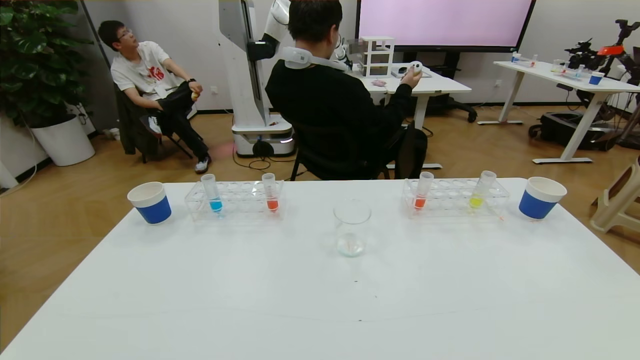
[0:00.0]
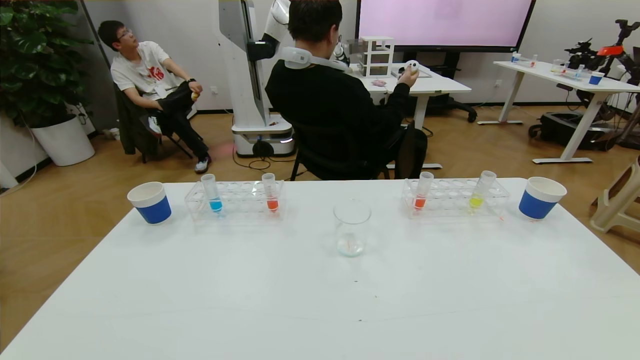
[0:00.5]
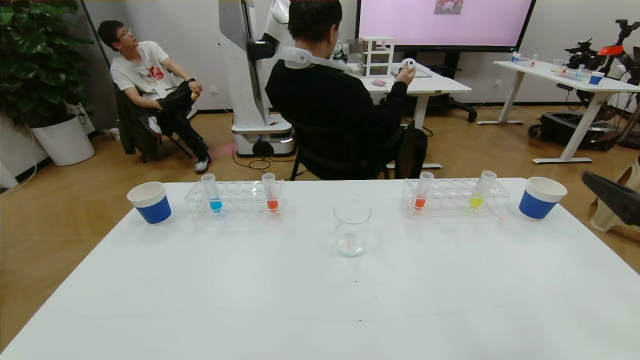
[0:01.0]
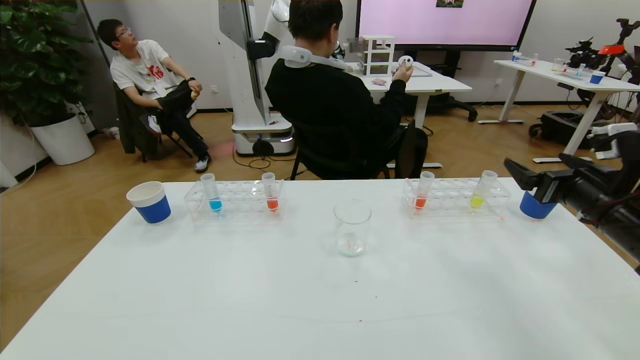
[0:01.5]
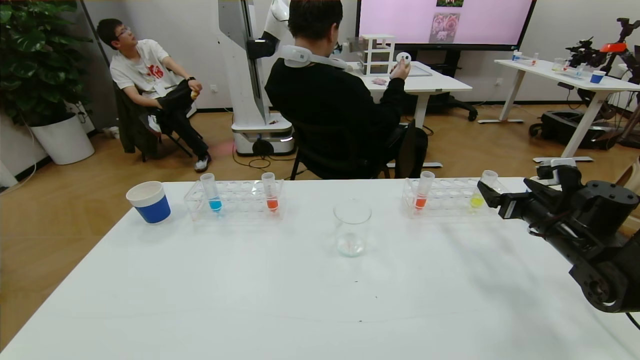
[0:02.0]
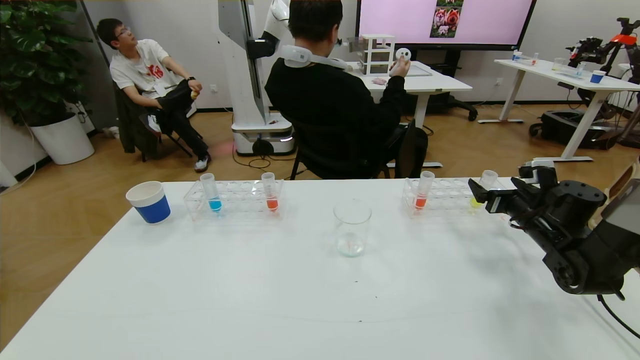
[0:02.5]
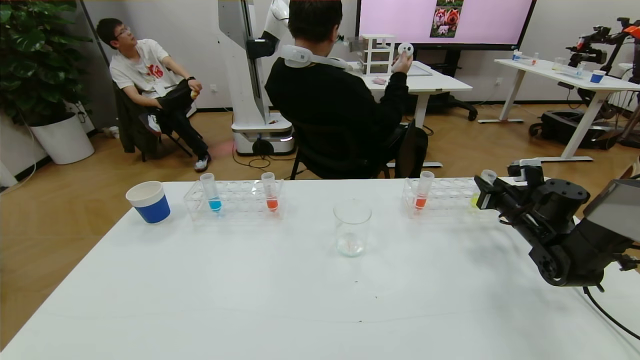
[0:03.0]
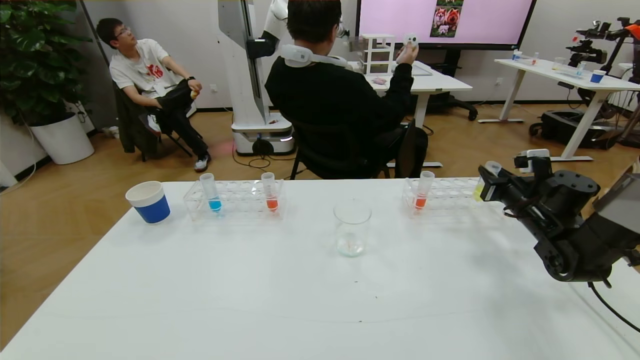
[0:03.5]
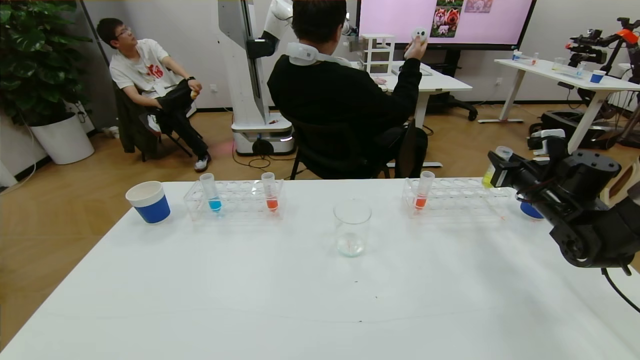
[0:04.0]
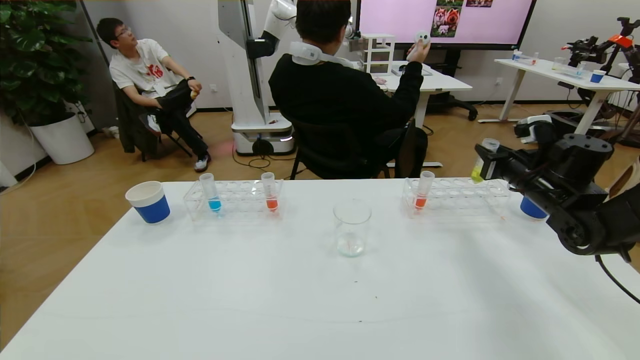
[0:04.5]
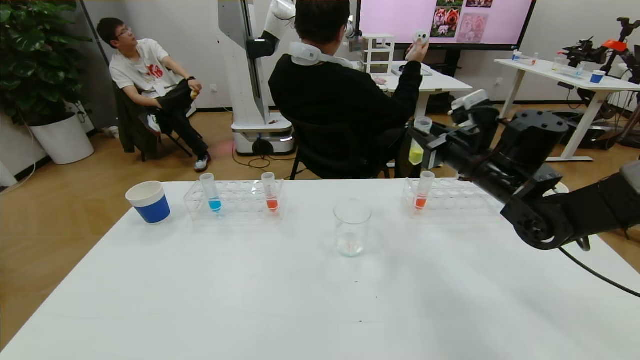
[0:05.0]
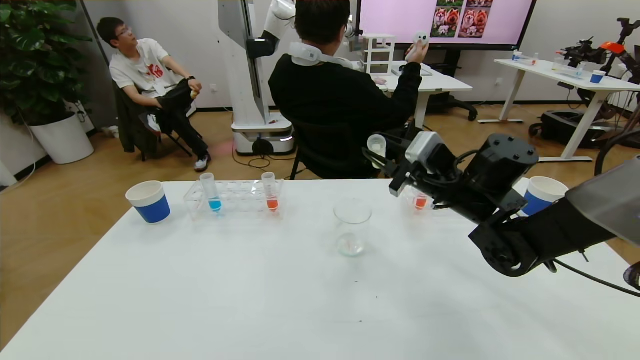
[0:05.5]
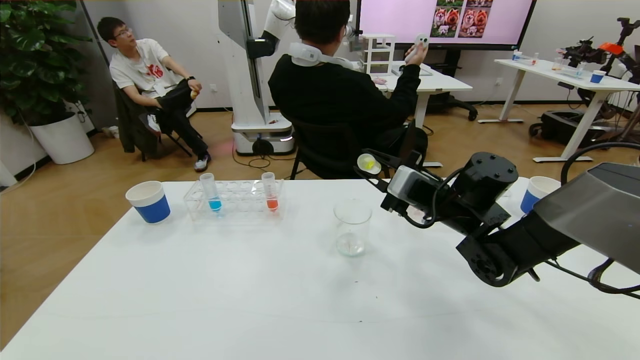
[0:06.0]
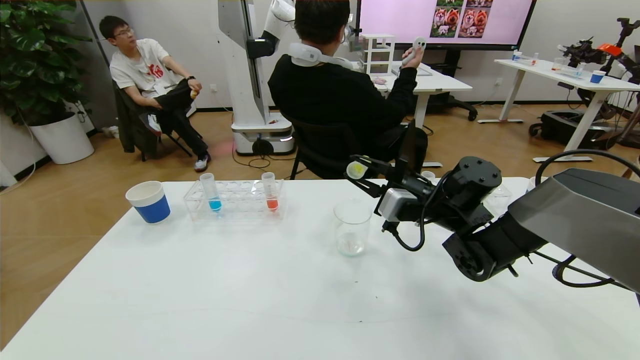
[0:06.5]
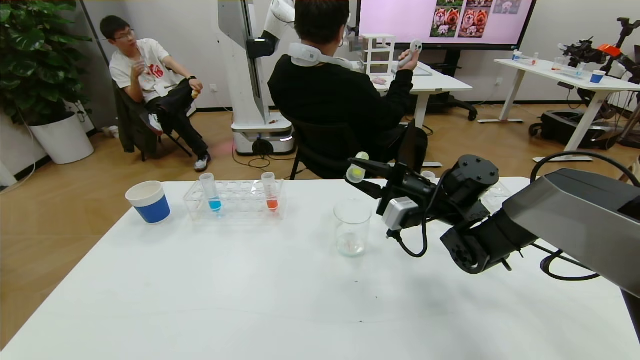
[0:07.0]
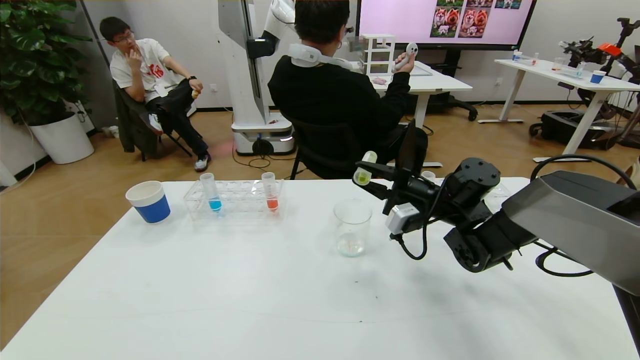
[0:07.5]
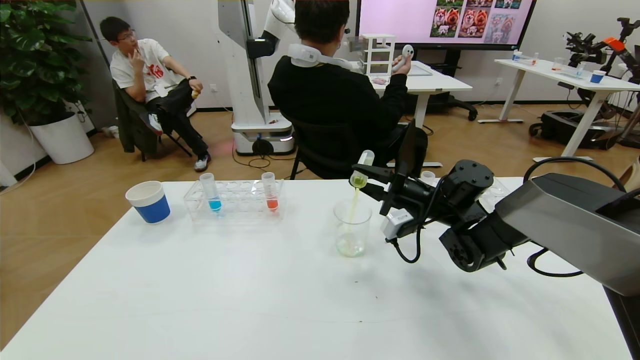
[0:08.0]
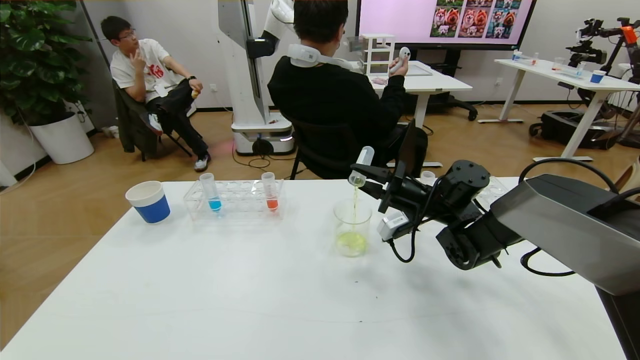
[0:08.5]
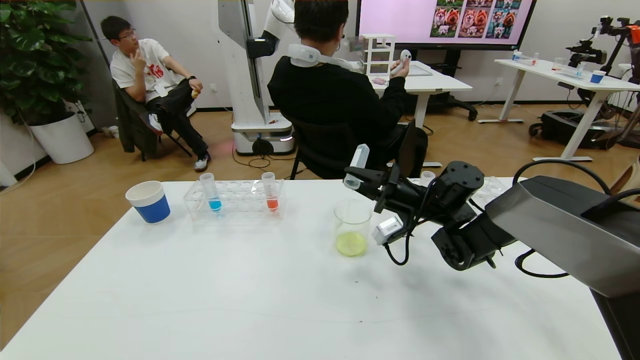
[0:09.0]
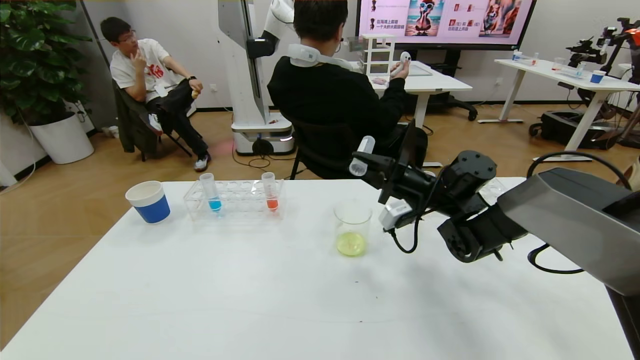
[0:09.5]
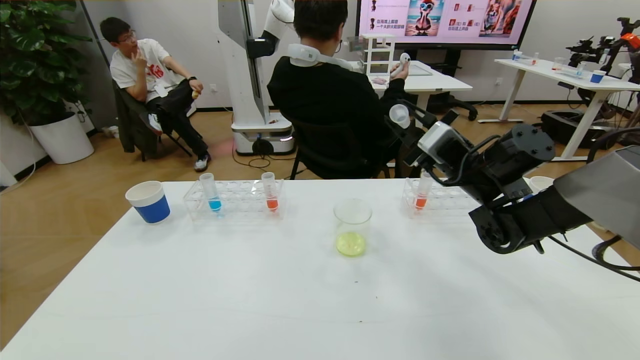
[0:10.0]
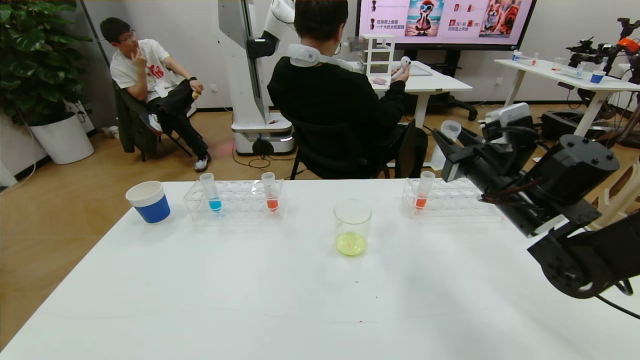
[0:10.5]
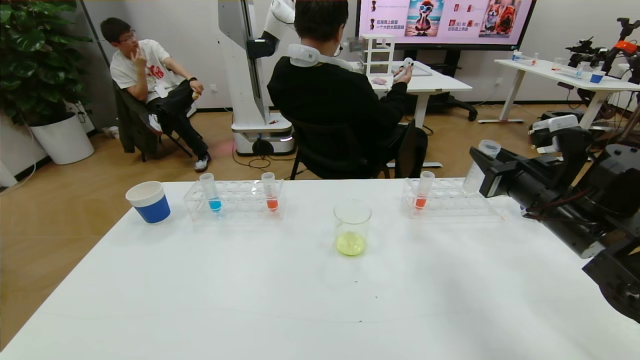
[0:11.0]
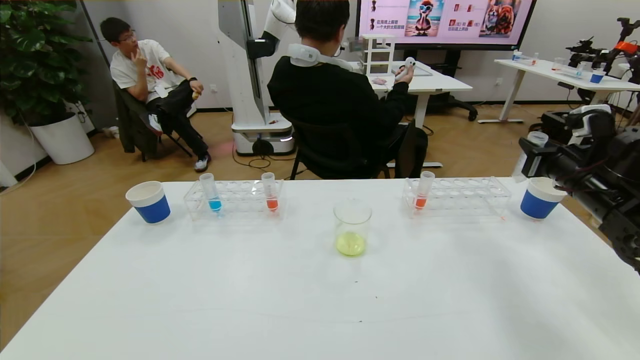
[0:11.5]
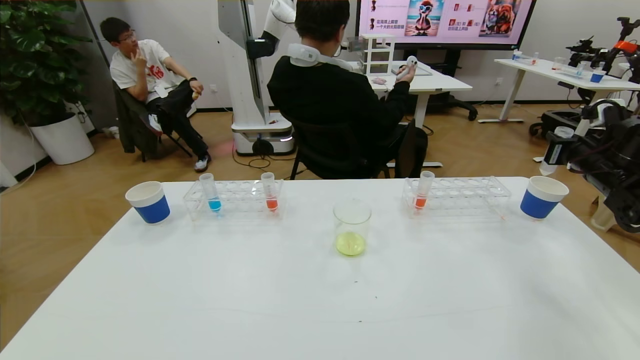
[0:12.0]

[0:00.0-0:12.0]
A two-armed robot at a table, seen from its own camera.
Task of the whole recording: pick up the test tube with yellow pigment and the test tube with blue pigment by grippers and pour them into the beaker.
0:00.0 to 0:02.0: The right gripper is displaced forward by approximately 35 cm.
0:02.0 to 0:04.0: The right gripper travels forward by about 5 cm, and closes its fingers.
0:04.0 to 0:06.0: The right gripper shifts some 20 cm to the left.
0:06.0 to 0:08.0: The right gripper changes place by some 5 cm.
0:08.0 to 0:10.0: The right gripper goes roughly 10 cm upward.
0:10.0 to 0:12.0: The right gripper is displaced to the right by some 25 cm.

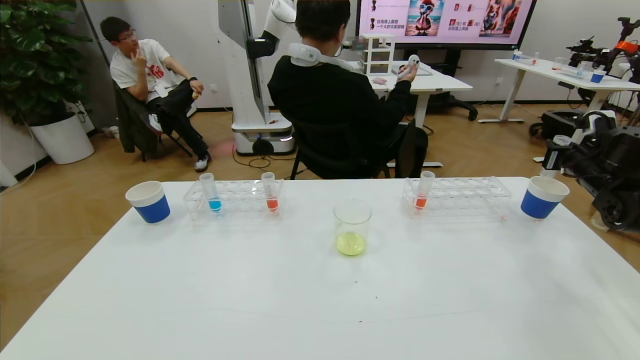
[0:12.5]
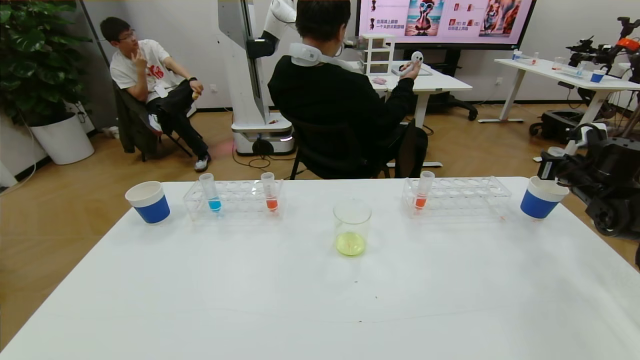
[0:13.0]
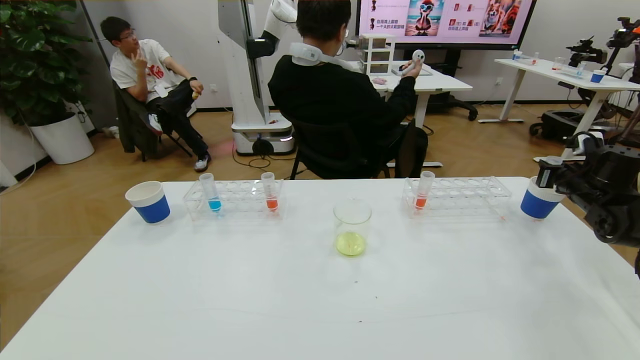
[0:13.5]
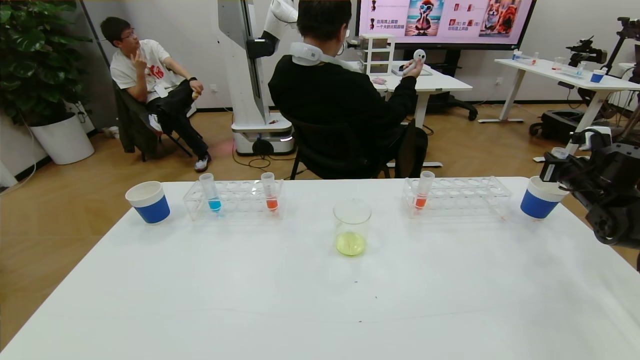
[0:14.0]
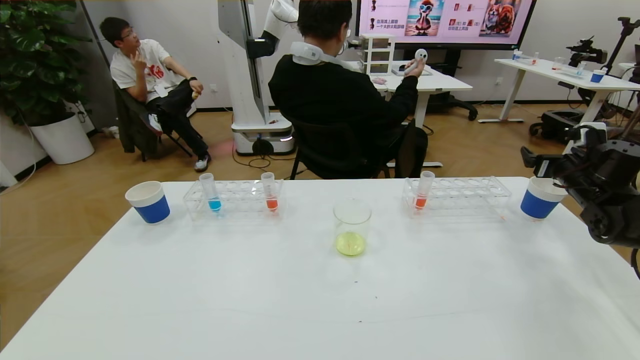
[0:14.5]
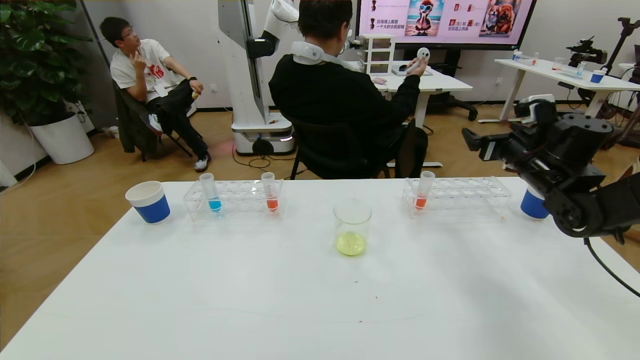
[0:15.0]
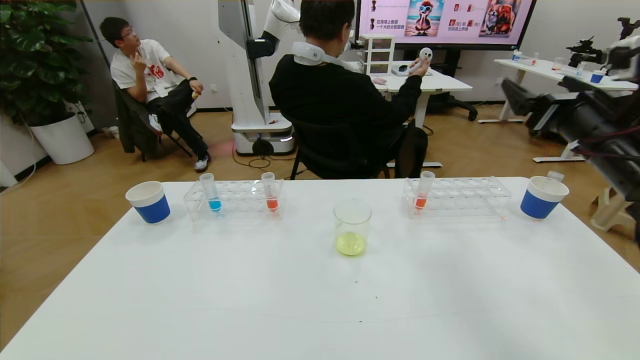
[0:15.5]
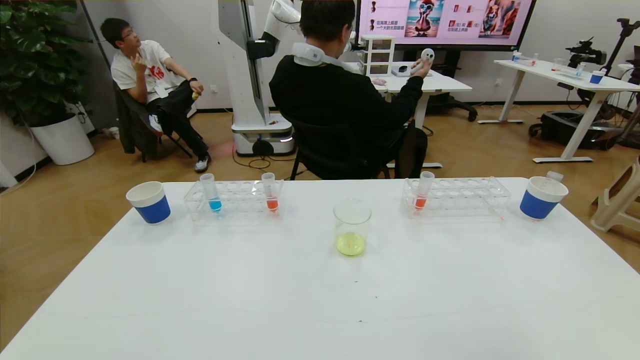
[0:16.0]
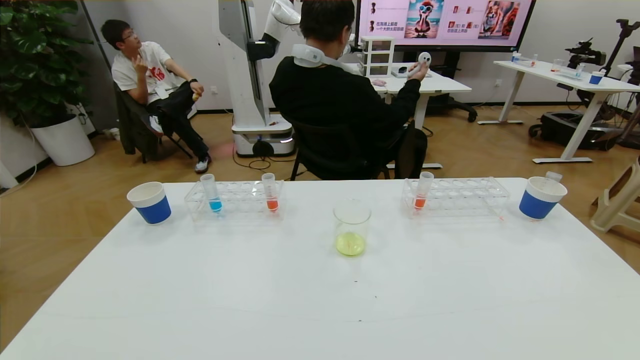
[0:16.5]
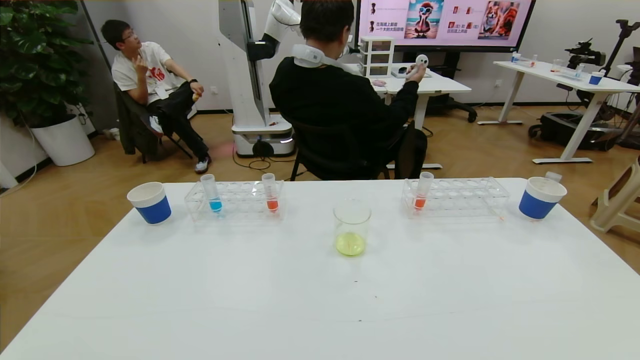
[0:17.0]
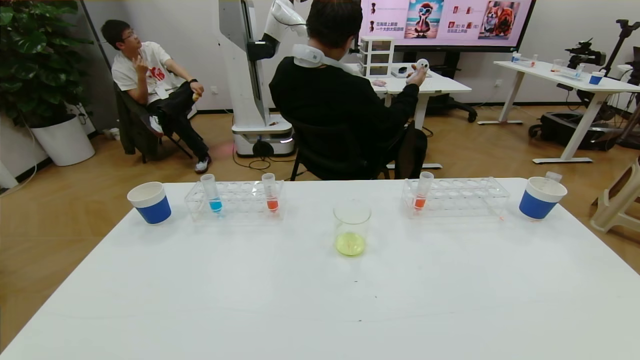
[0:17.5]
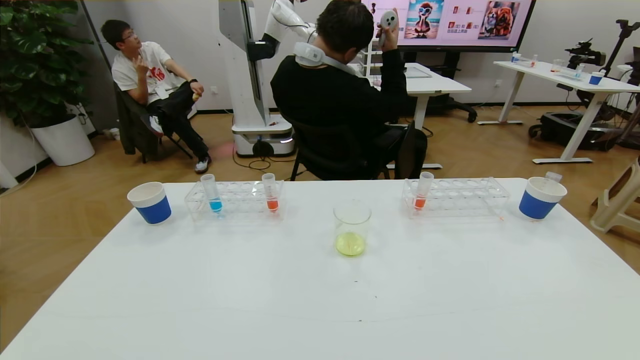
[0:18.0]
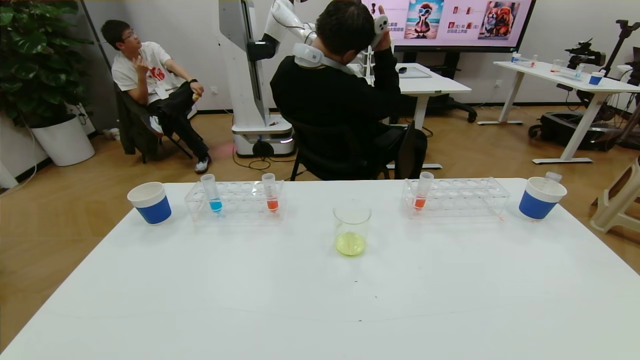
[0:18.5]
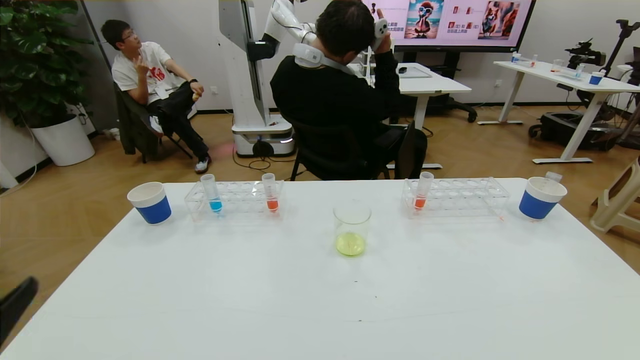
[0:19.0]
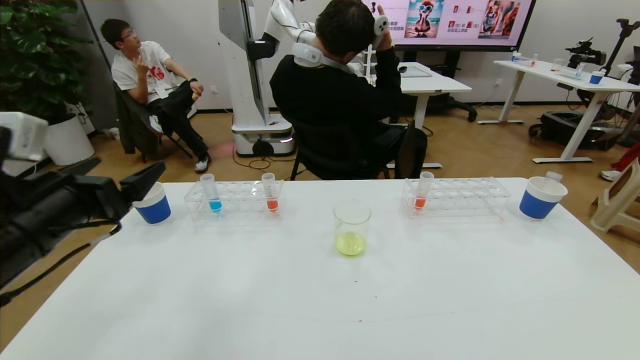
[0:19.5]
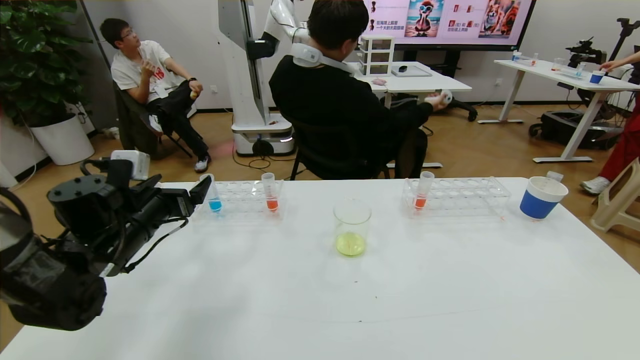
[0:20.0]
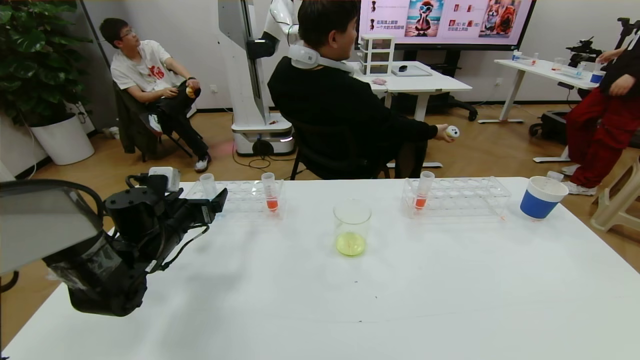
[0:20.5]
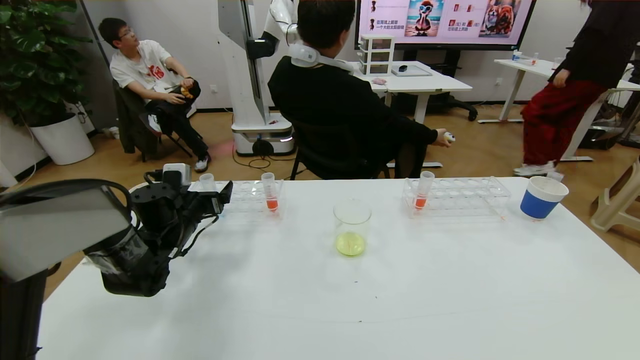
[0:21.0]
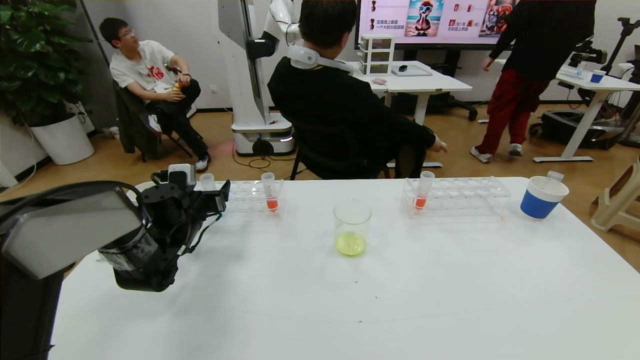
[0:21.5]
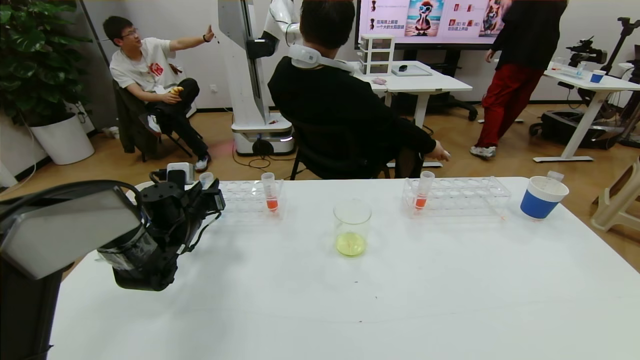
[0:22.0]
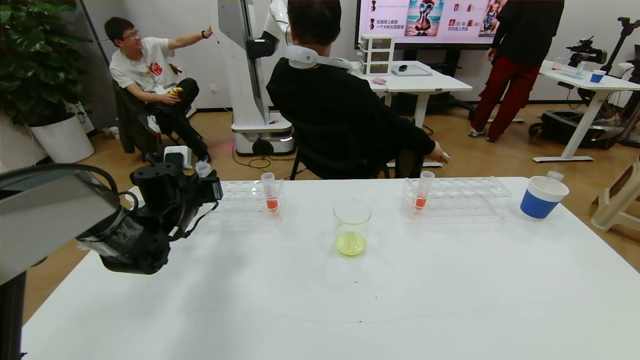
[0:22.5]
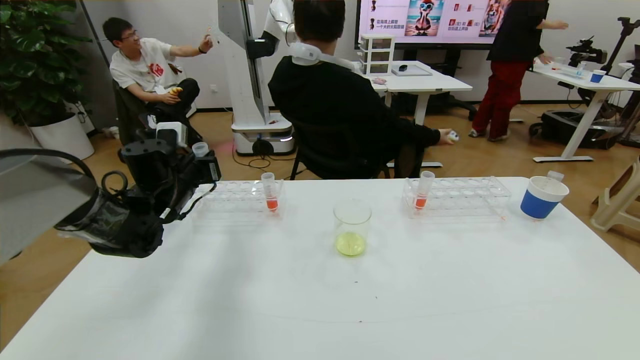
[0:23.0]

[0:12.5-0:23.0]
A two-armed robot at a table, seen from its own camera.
Task of the whole recording: pick up the test tube with yellow pigment and the test tube with blue pigment by grippers and pour them into the beaker.
Step, 0:12.5 to 0:16.0: Pour the yellow reagent into the graduated cylinder and place the test tube into the paper cup.
0:12.5 to 0:14.5: The right gripper opens.
0:14.5 to 0:16.5: The right gripper travels backward by some 40 cm.
0:16.5 to 0:19.0: The left gripper moves upward and forward, roughly 15 cm. The right gripper shifts about 20 cm downward.
0:19.0 to 0:21.0: The left gripper goes roughly 35 cm forward.
0:21.0 to 0:23.0: The left gripper moves upward, roughly 10 cm, and closes up.
